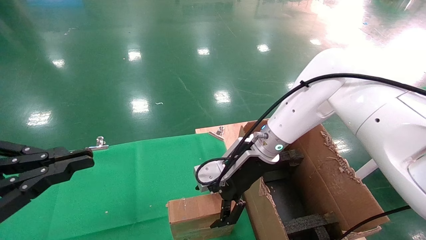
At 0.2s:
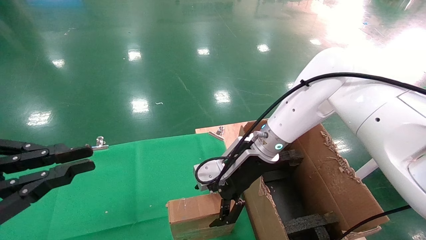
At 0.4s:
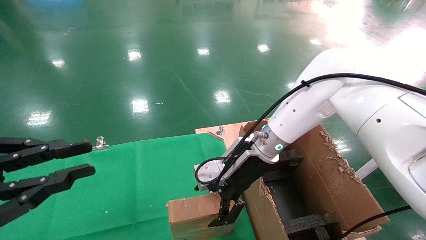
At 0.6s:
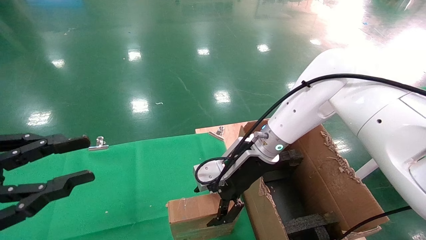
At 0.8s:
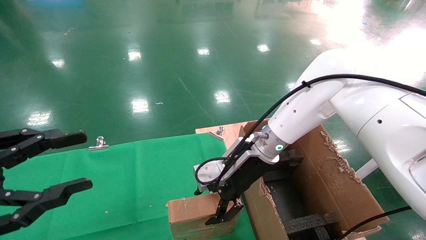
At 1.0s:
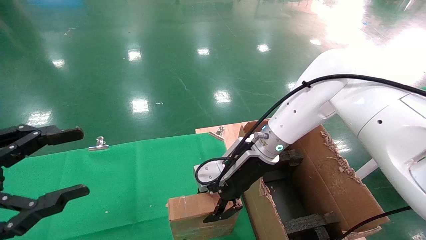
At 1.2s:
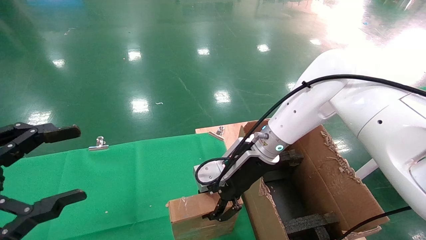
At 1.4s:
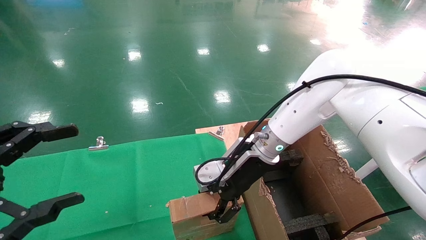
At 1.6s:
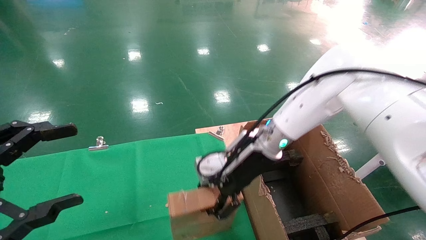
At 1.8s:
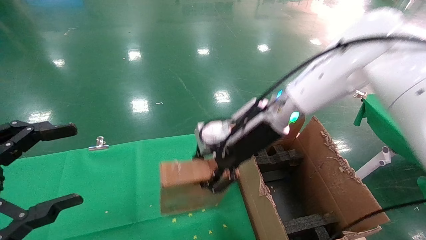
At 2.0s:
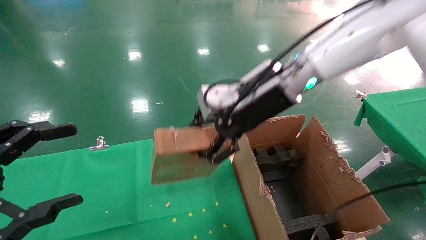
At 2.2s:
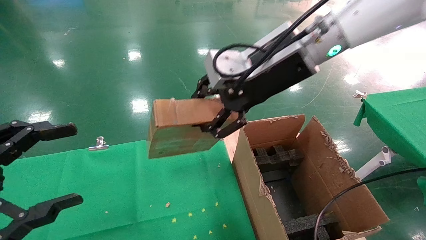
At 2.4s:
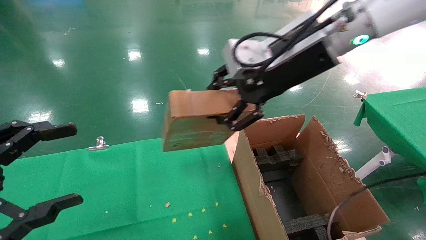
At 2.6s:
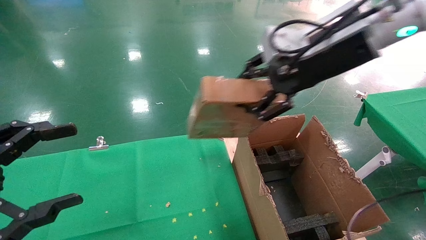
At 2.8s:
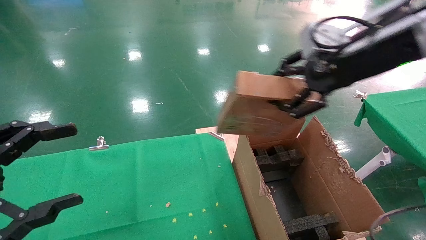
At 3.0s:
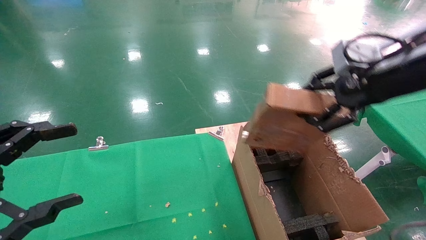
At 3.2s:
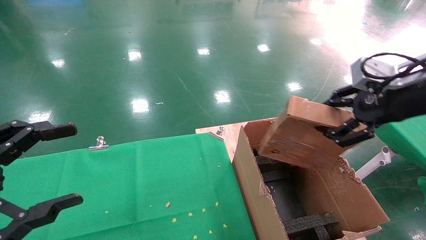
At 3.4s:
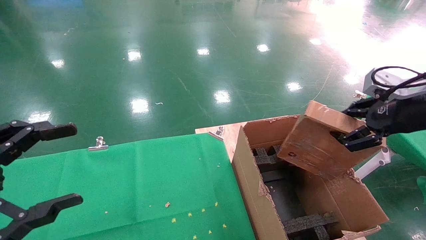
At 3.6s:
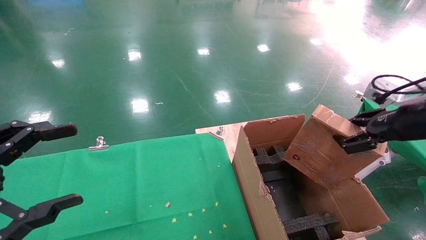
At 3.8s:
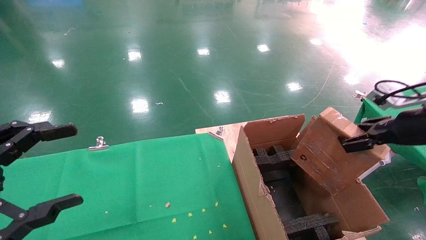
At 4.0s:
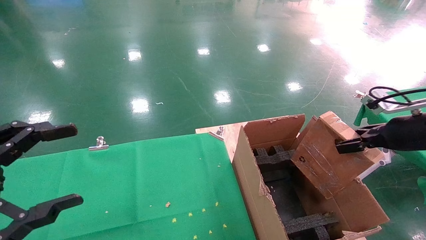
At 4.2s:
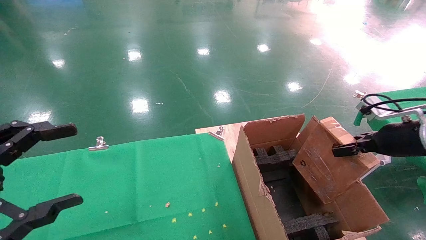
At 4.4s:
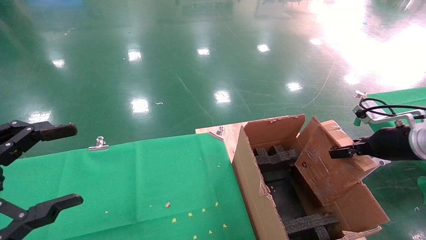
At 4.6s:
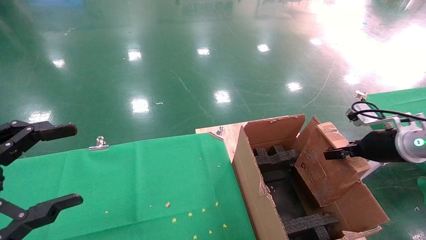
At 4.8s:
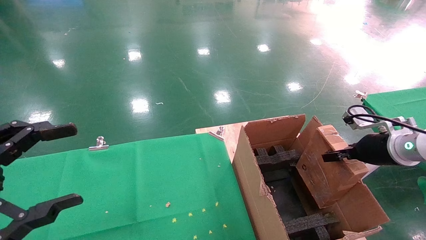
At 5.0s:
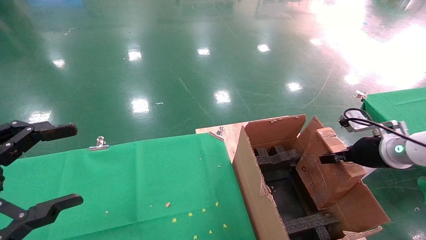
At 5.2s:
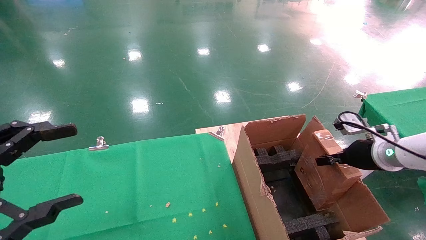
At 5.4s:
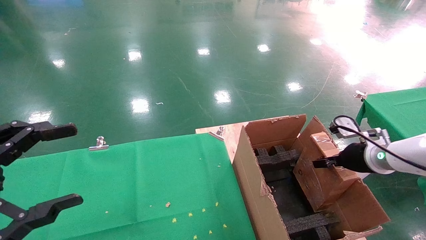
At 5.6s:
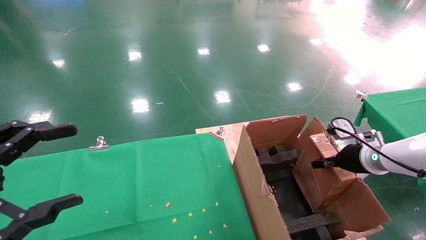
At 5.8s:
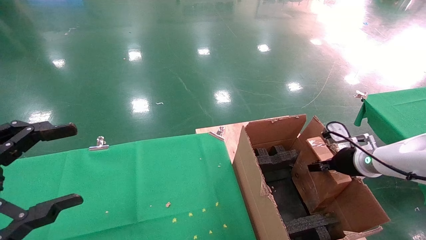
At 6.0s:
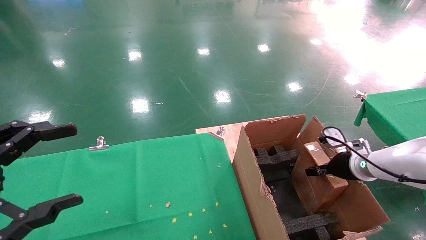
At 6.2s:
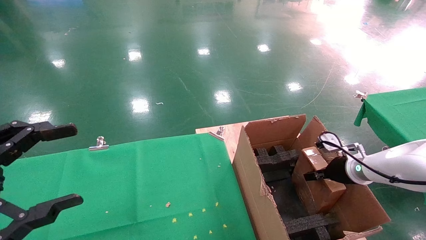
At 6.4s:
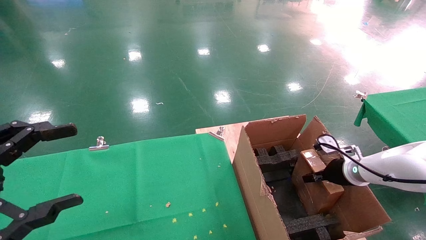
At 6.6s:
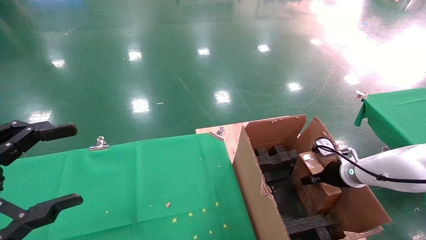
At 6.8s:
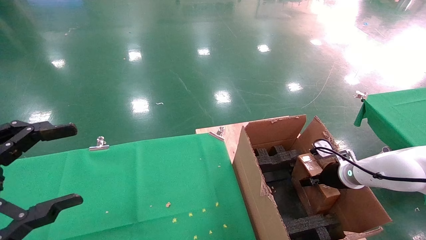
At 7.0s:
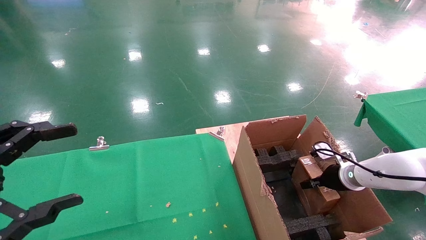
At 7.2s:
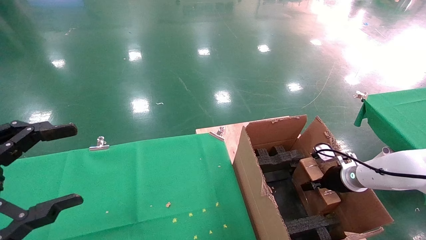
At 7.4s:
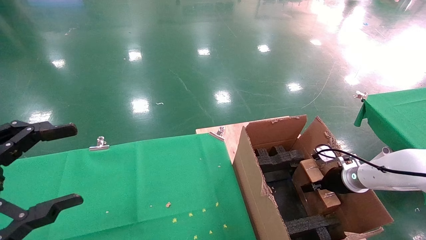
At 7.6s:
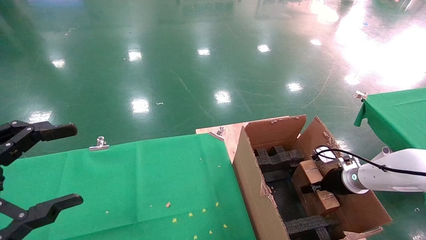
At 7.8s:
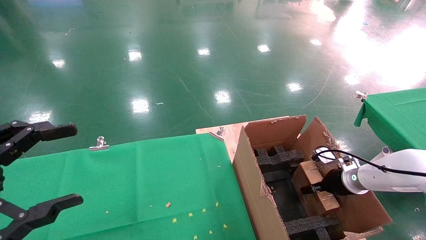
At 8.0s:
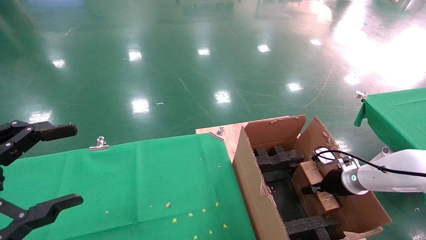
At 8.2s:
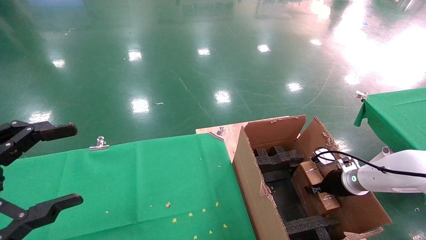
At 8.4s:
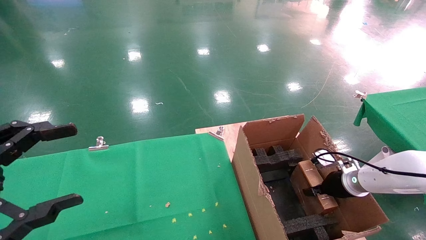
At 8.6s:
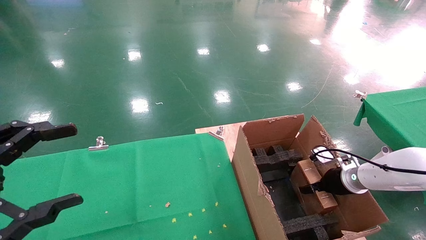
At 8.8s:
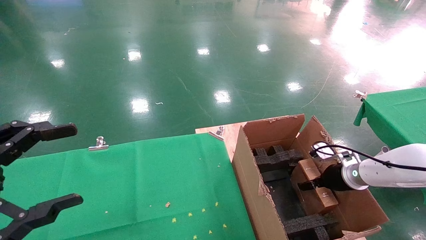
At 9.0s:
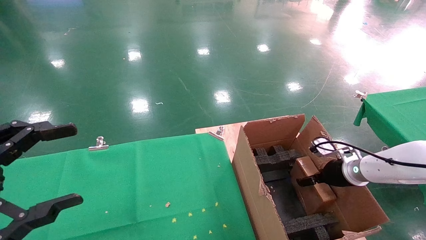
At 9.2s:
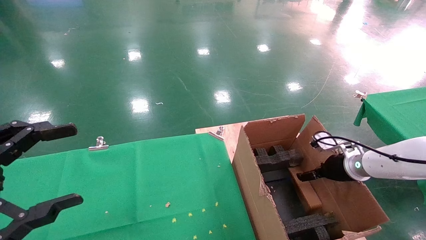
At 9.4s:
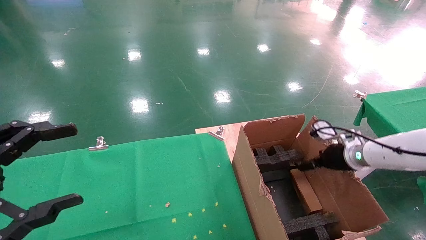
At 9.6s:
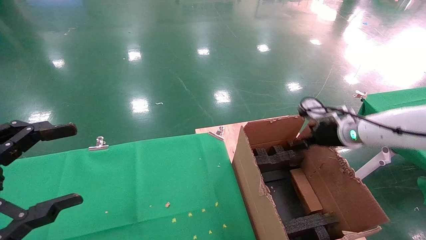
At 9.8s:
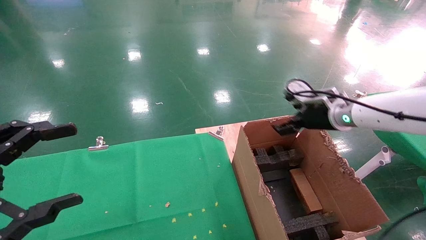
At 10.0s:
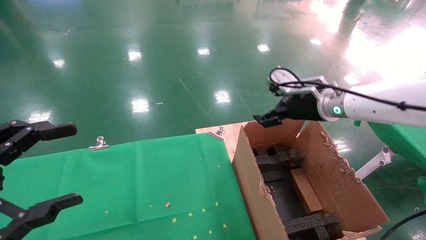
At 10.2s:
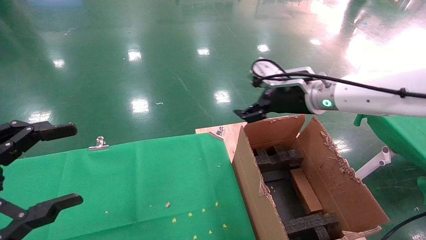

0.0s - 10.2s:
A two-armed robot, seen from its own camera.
Task of the whole recording: using a robotic arm to pick up a cardboard box and palace it the carton.
Step, 0.0s - 1.2s: Pick up the mouse and the power cord paper box.
Step, 1.4s - 9.6s: Place the mouse and the power cord paper box into the container.
0.0s - 1.4s: The right gripper closes up, while the left gripper opens its fingers.
1.4s - 3.0s: The right gripper goes about 30 cm to the right, upward and backward.
3.0s - 4.4s: The right gripper is displaced downward and to the right by approximately 20 cm.
4.4s - 5.8s: The right gripper is displaced downward and forward by some 10 cm.
5.8s - 7.2s: The right gripper travels downward by approximately 10 cm.
7.2s - 8.8s: The right gripper opens up.
8.8s - 10.2s: The right gripper shifts some 25 cm upward and to the left.

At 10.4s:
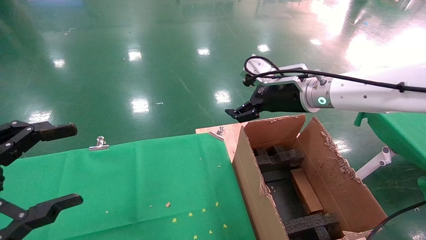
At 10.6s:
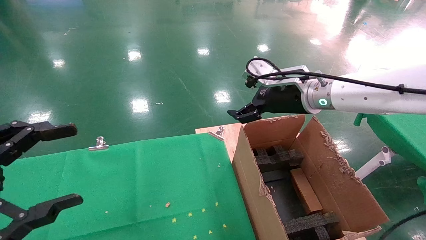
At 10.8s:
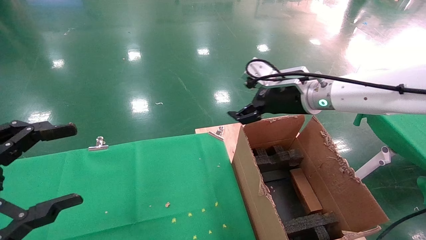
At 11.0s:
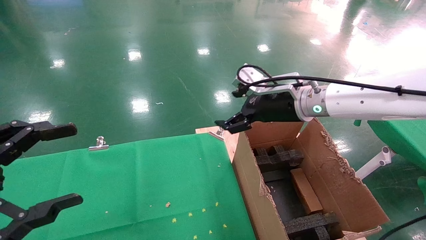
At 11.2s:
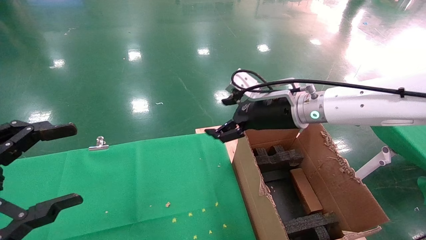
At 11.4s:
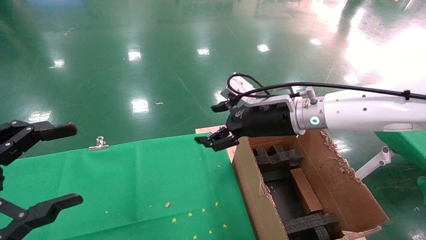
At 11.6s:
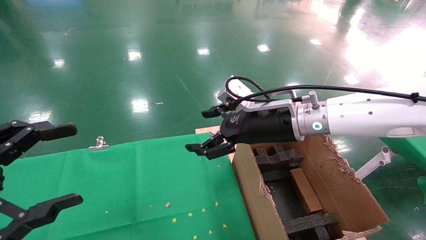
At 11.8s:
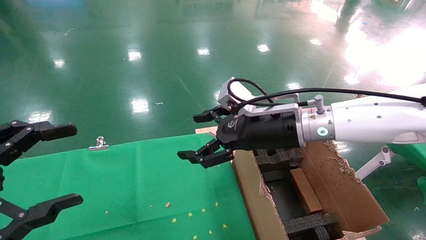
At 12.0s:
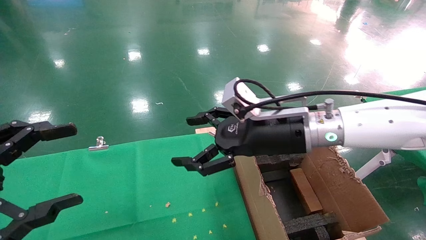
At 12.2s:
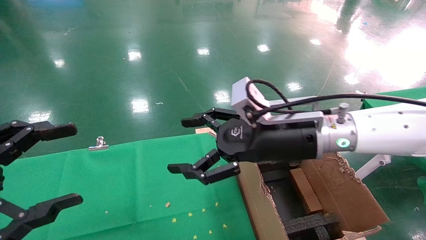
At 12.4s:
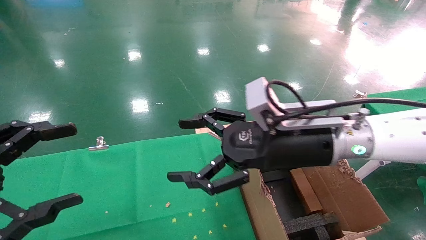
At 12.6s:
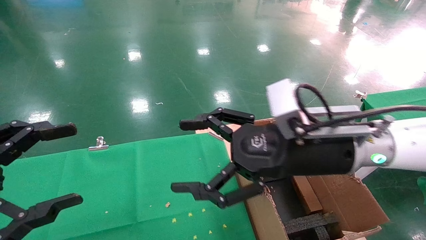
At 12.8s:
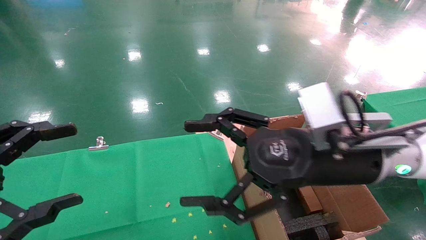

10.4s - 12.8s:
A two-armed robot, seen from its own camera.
Task of the whole recording: using a robotic arm to pick up a cardboard box and palace it the carton.
10.4s - 11.6s: The right gripper is displaced to the left by approximately 5 cm.
11.6s - 12.8s: The right gripper moves backward, approximately 10 cm.

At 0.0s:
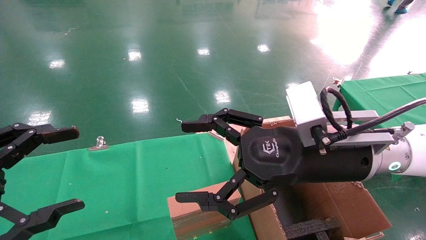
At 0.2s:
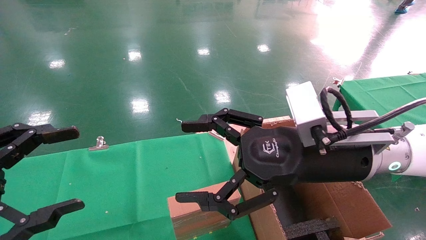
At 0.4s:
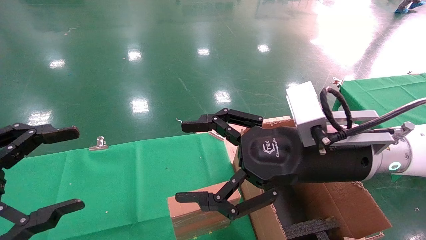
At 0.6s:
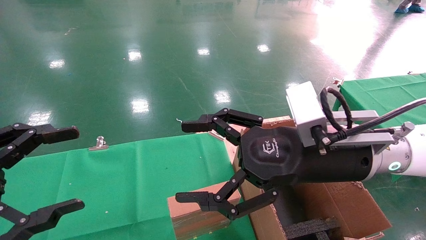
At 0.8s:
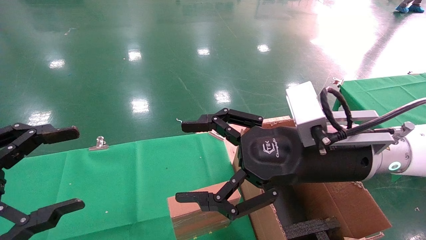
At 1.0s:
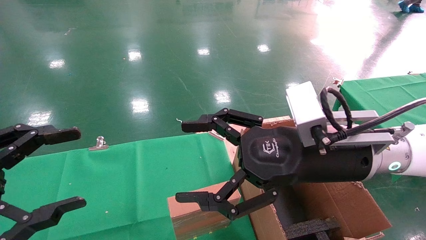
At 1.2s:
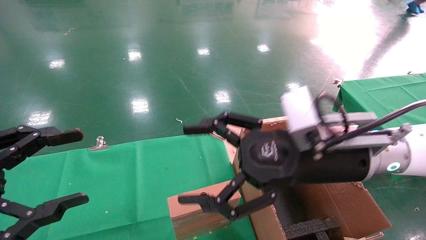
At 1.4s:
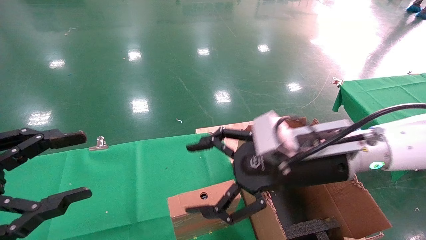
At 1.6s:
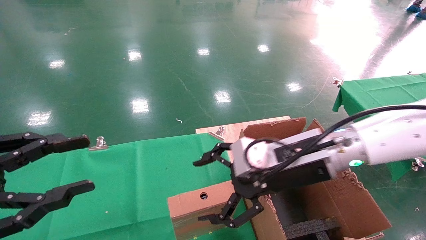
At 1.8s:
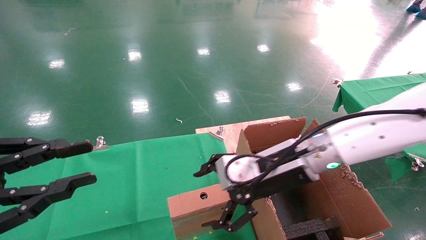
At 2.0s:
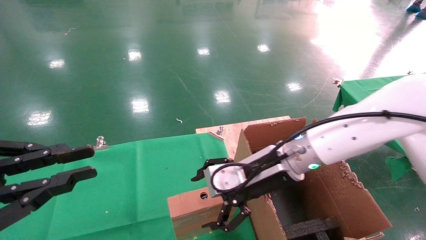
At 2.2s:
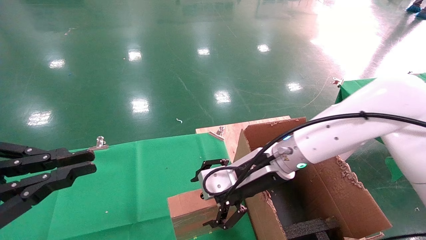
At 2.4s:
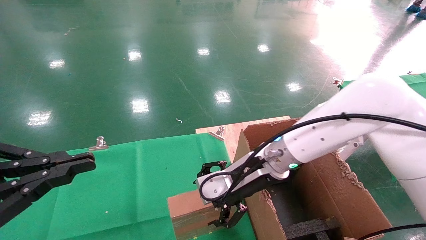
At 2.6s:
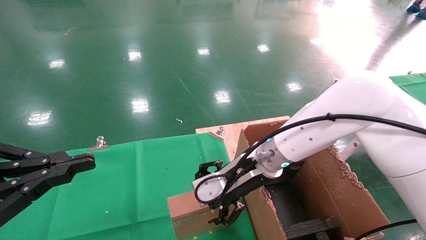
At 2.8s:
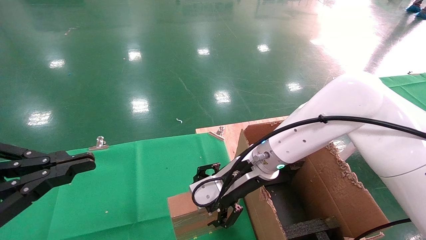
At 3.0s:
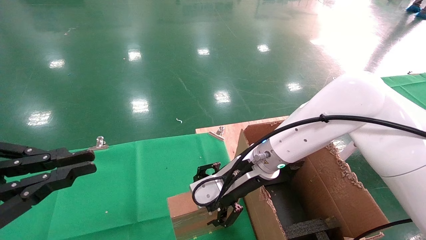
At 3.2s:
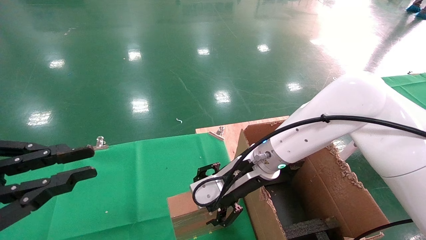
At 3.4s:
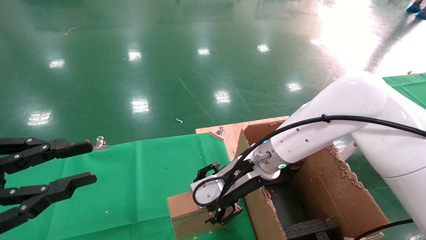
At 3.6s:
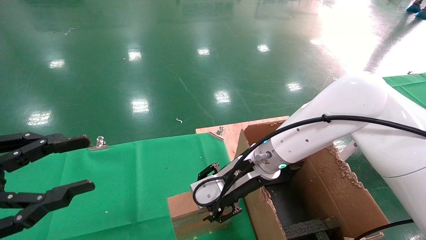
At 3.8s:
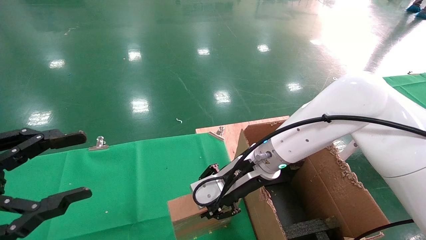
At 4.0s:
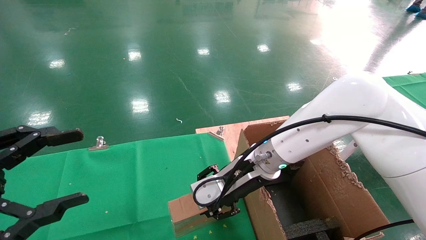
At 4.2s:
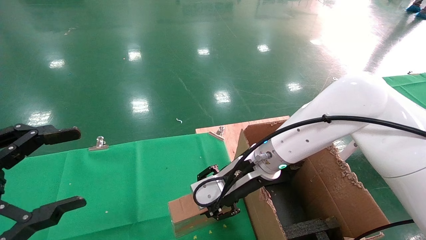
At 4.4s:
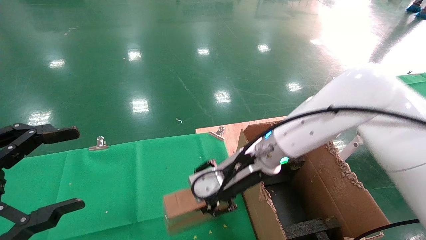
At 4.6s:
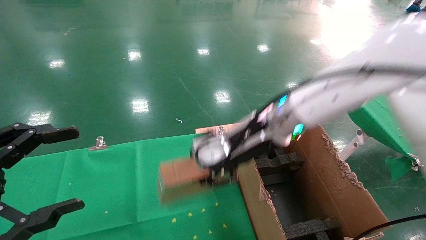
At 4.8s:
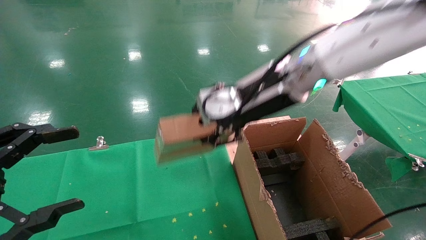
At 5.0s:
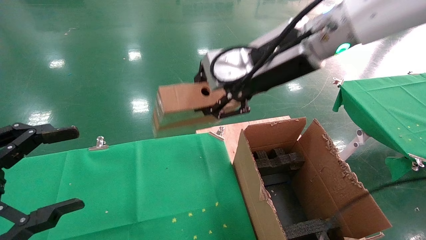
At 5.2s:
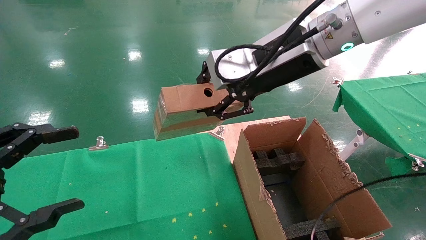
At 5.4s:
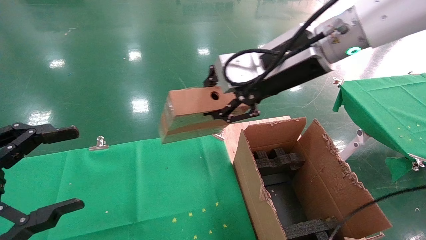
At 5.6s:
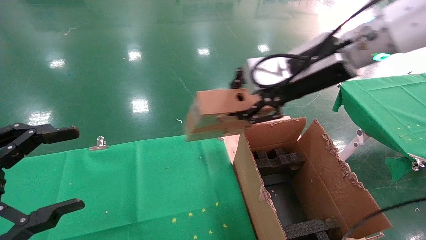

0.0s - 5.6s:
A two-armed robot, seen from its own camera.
Task of the whole recording: using a robotic arm to pick up a cardboard box and palace it the carton.
Step, 1.6s - 4.6s: Pick up the mouse and the power cord paper box.
0.0s - 1.4s: There are only small adjustments of the grippers.
1.4s - 2.8s: The right gripper is displaced forward, to the left and downward by about 10 cm, while the left gripper closes up.
2.8s - 4.2s: The right gripper closes its fingers, while the left gripper opens up.
4.2s - 5.6s: The right gripper is displaced upward and to the right by about 20 cm.
